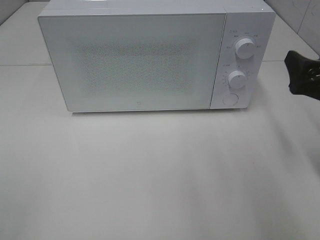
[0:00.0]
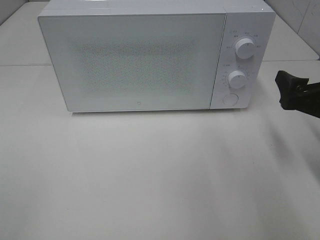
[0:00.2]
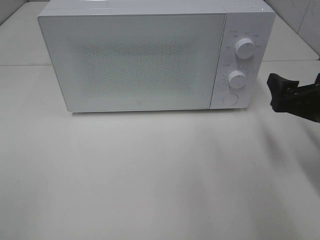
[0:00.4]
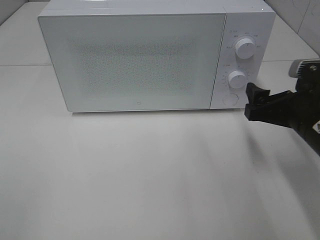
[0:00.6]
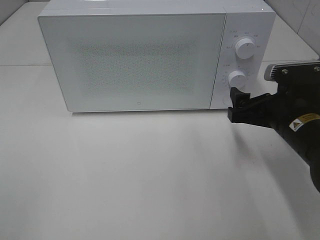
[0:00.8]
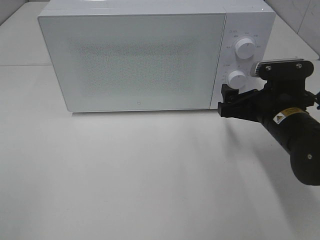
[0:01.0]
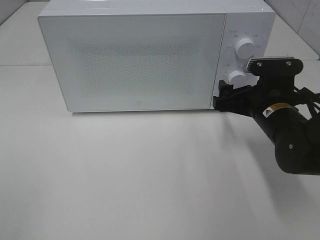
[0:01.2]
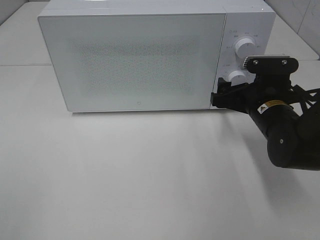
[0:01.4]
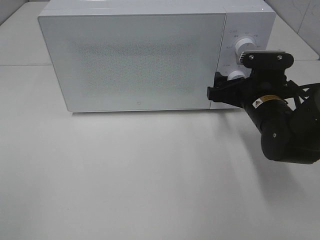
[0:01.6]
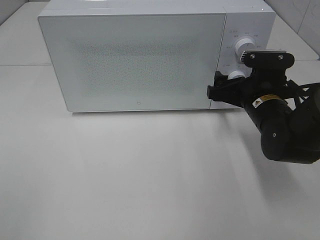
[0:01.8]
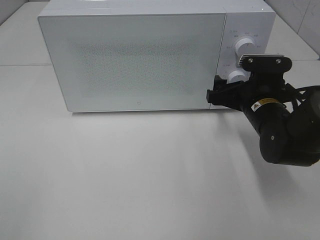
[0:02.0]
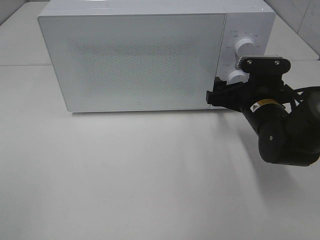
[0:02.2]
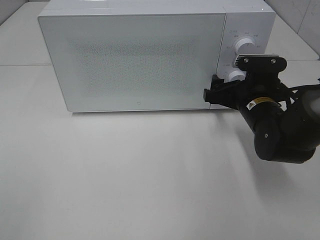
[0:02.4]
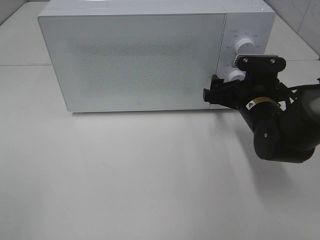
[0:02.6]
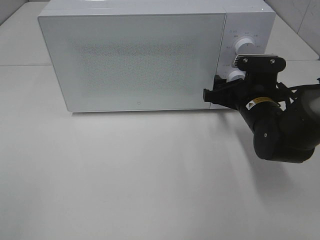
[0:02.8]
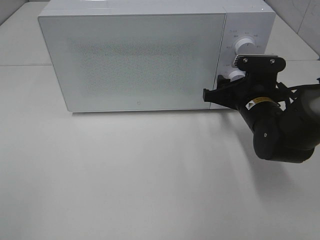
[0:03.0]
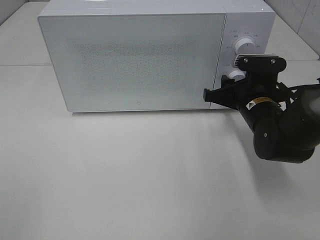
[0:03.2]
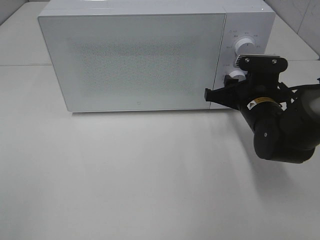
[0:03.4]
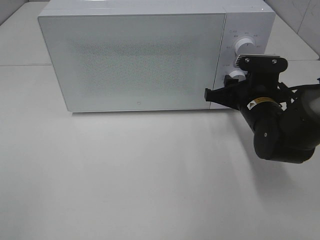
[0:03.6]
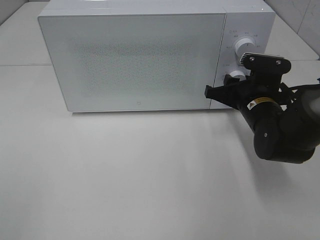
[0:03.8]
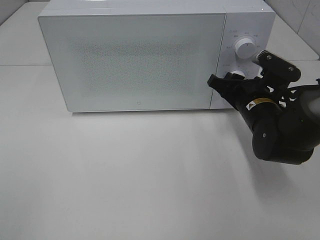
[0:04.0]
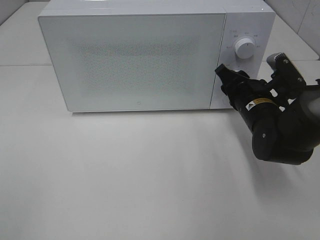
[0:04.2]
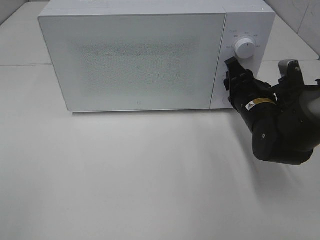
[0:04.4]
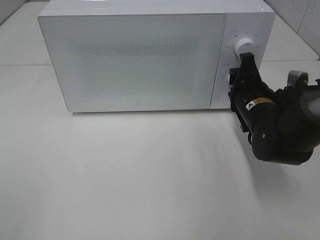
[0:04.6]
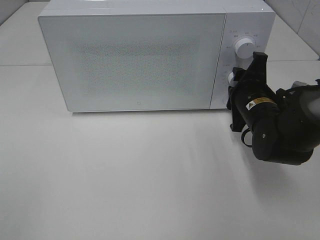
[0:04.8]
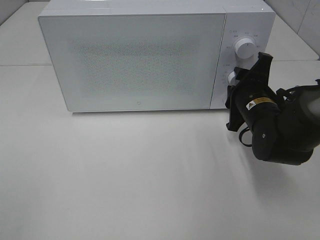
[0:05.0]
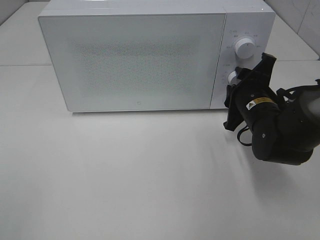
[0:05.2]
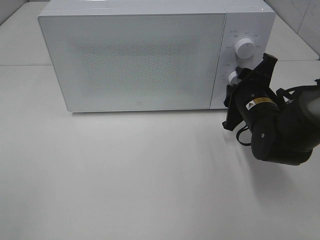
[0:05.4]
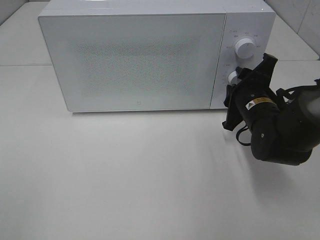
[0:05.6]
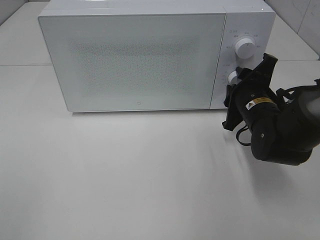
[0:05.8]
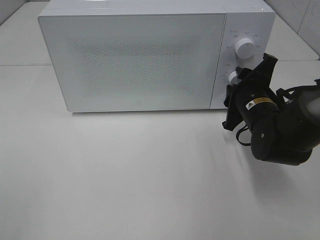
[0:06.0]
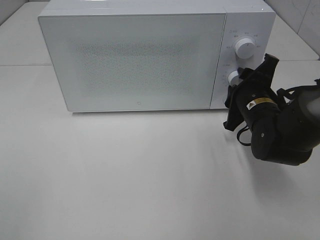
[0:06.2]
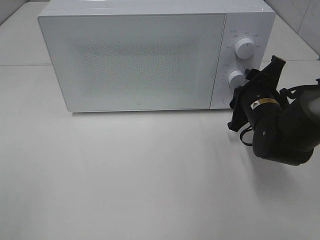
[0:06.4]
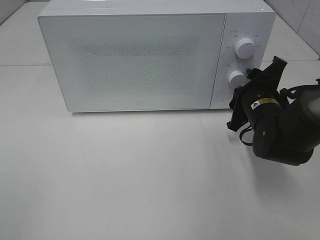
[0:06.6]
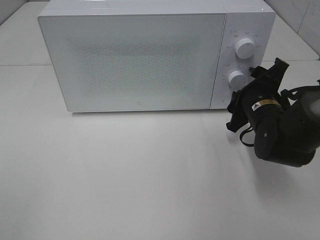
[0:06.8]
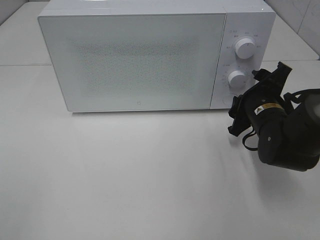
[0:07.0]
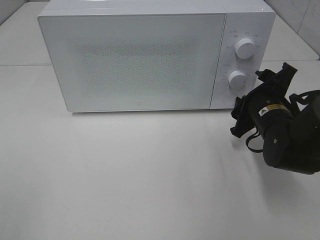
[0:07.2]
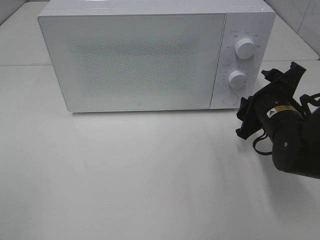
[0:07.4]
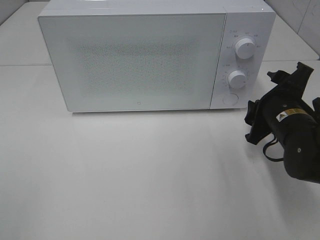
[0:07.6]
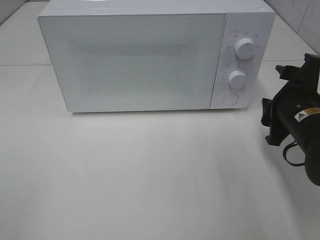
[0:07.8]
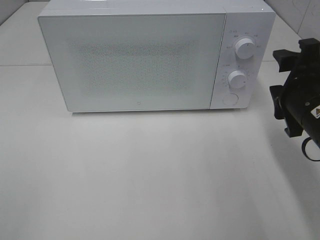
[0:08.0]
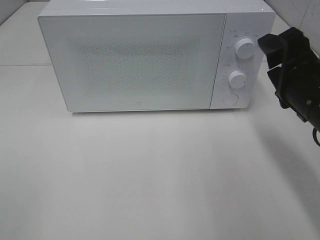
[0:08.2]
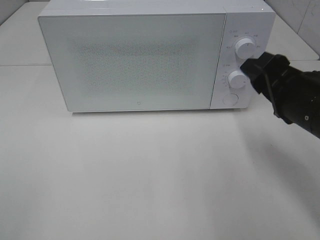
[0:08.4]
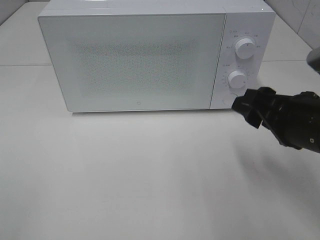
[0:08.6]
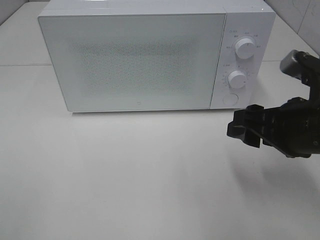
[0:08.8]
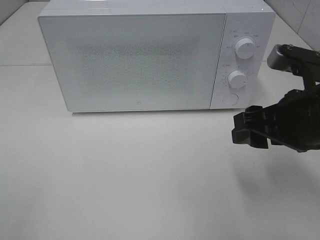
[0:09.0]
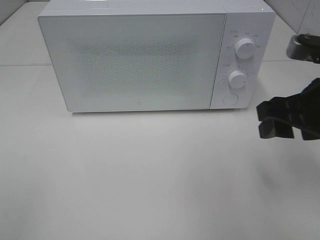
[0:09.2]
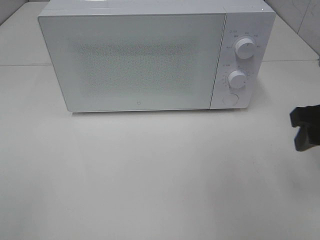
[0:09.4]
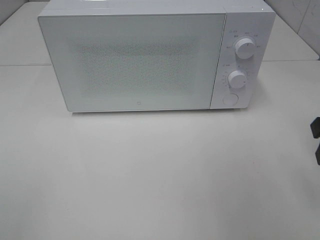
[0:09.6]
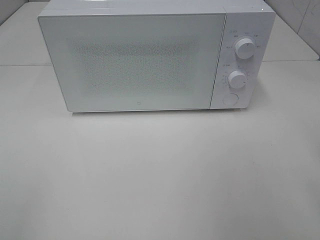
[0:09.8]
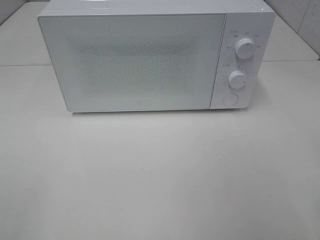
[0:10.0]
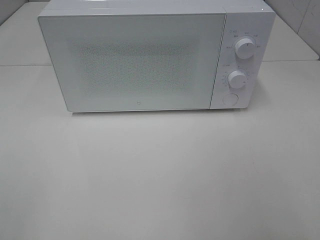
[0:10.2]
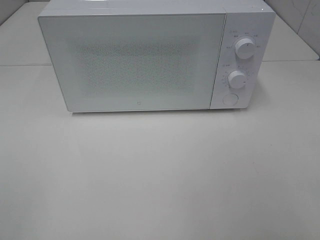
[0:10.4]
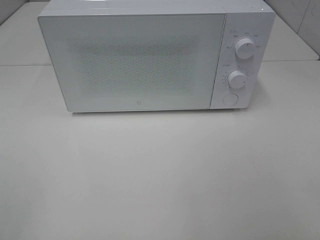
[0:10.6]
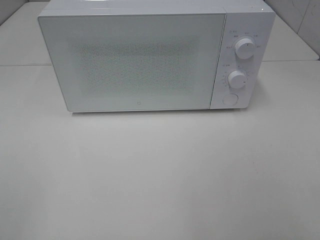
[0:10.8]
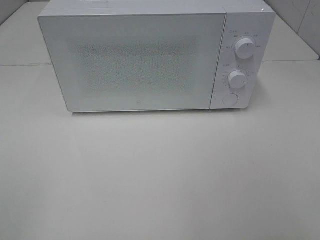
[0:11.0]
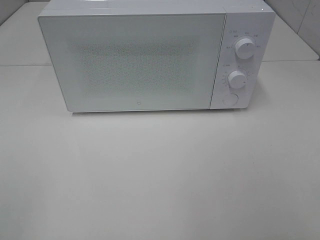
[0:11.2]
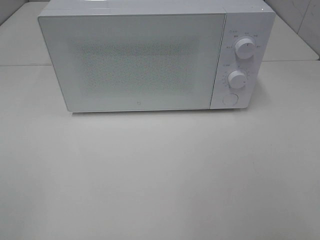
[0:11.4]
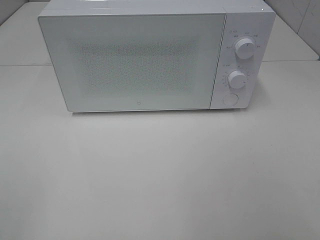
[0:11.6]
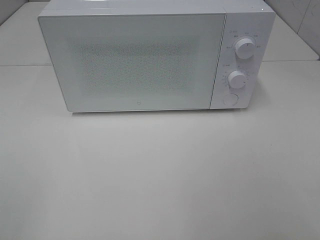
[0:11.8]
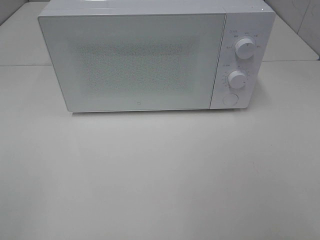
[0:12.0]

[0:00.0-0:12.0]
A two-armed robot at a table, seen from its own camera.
Task of the whole recording: Heat the burger.
Step, 0:00.0 to 0:06.6: Right hand: twist timer button.
0:00.0 to 0:01.6: The right gripper heads to the left, forward and downward, covering approximately 15 cm.
0:01.6 to 0:03.0: The grippers move only a little.
0:06.0 to 0:07.6: The right gripper ends up roughly 5 cm from where it was.
0:07.6 to 0:09.0: The right gripper moves upward and backward, roughly 10 cm.
0:09.0 to 0:10.4: The right gripper heads backward and to the right, covering some 20 cm.

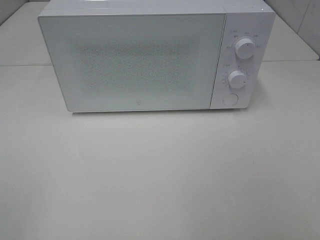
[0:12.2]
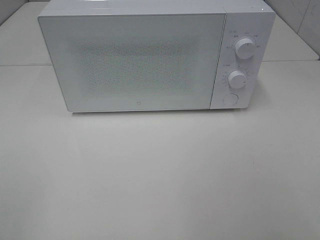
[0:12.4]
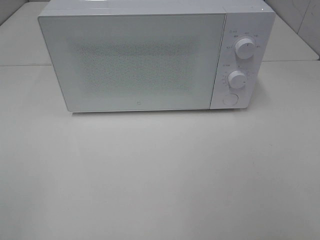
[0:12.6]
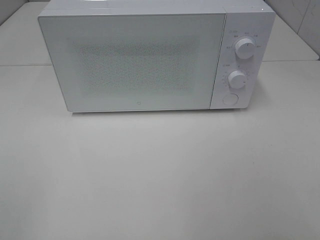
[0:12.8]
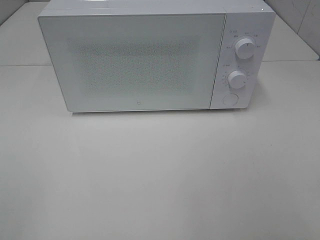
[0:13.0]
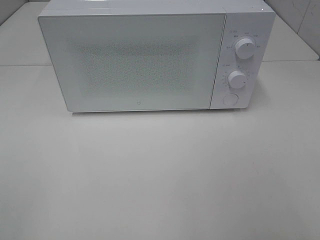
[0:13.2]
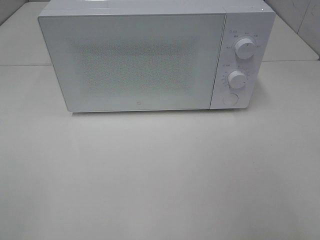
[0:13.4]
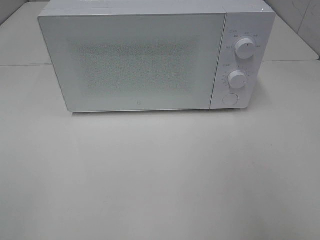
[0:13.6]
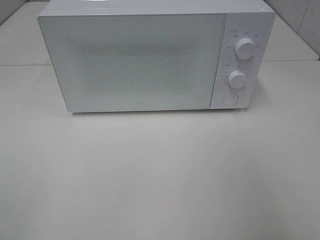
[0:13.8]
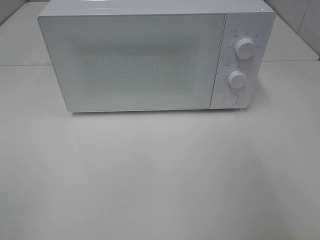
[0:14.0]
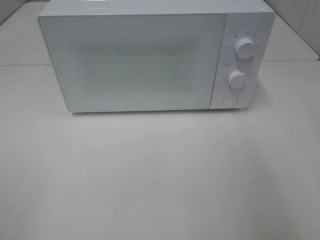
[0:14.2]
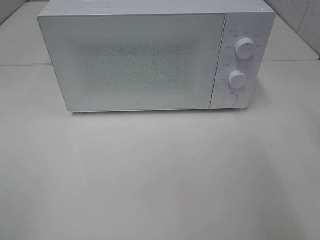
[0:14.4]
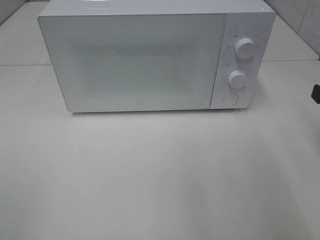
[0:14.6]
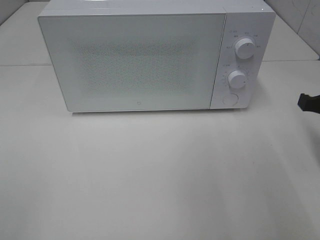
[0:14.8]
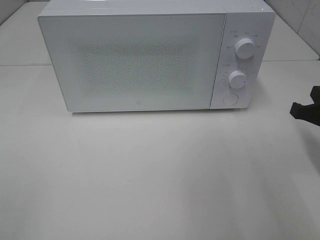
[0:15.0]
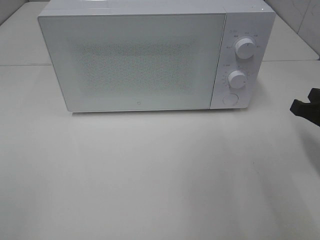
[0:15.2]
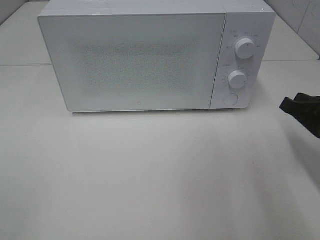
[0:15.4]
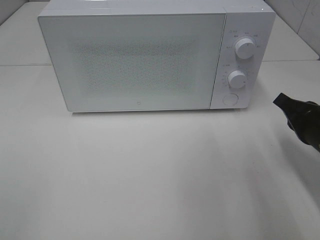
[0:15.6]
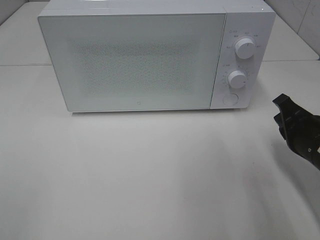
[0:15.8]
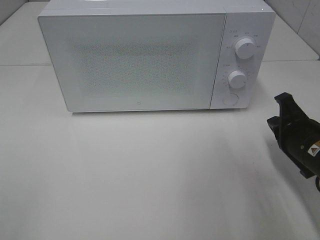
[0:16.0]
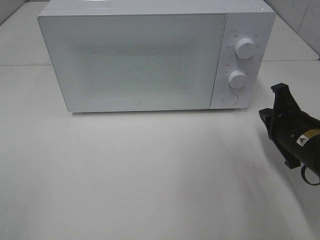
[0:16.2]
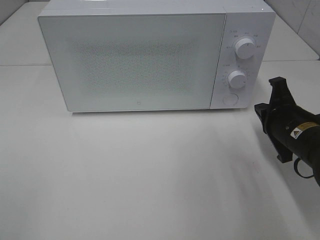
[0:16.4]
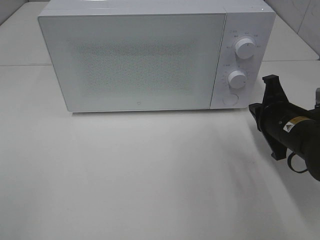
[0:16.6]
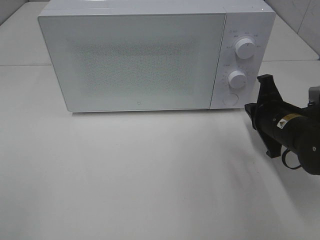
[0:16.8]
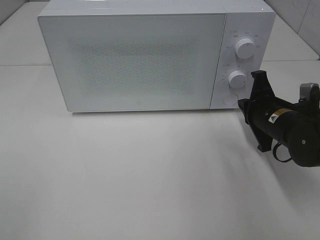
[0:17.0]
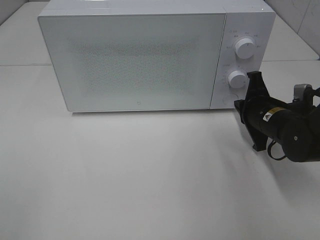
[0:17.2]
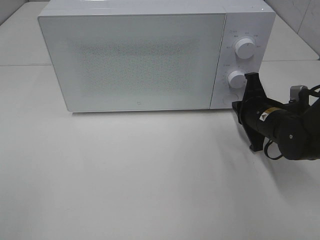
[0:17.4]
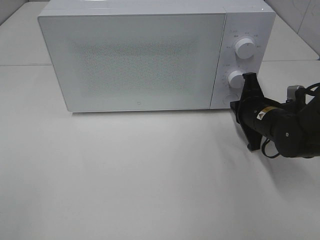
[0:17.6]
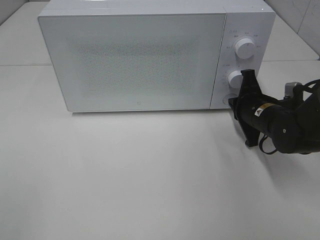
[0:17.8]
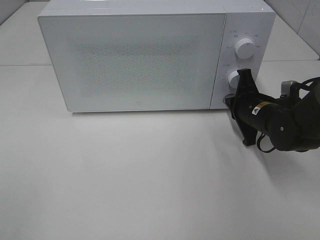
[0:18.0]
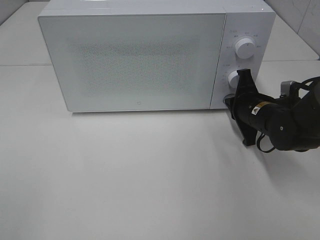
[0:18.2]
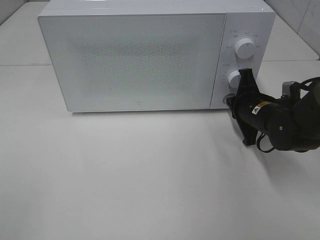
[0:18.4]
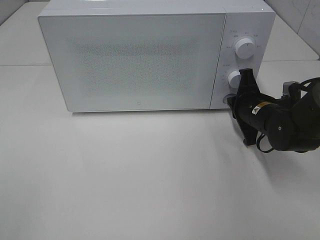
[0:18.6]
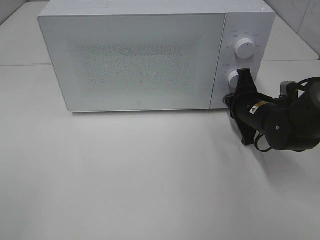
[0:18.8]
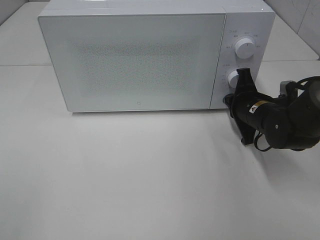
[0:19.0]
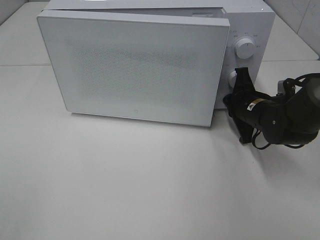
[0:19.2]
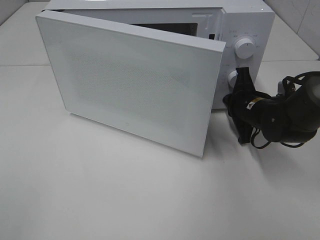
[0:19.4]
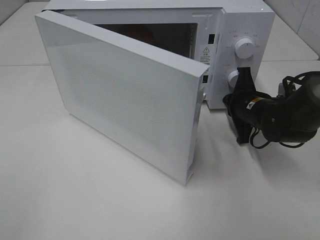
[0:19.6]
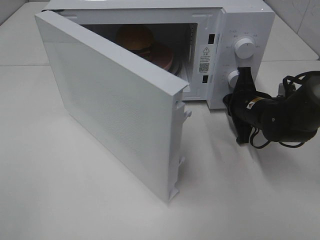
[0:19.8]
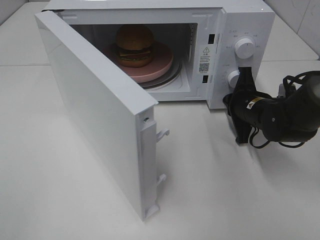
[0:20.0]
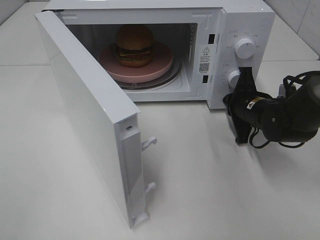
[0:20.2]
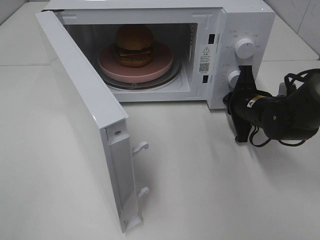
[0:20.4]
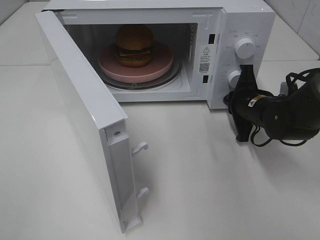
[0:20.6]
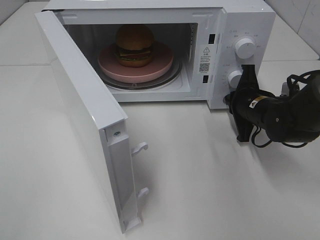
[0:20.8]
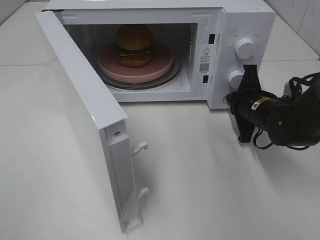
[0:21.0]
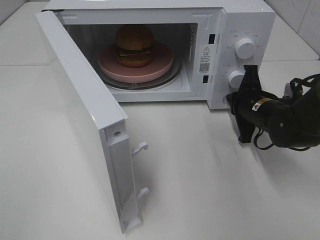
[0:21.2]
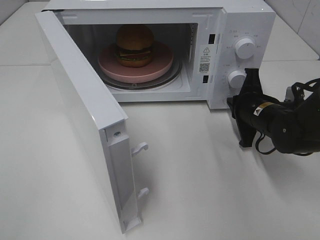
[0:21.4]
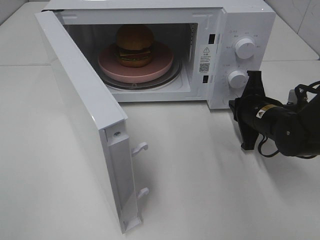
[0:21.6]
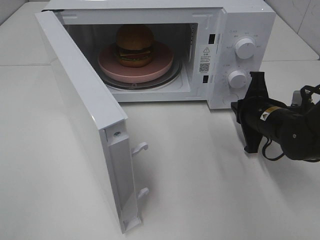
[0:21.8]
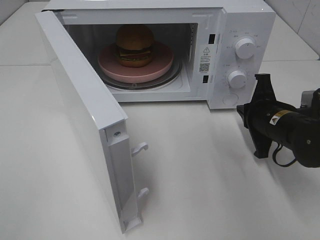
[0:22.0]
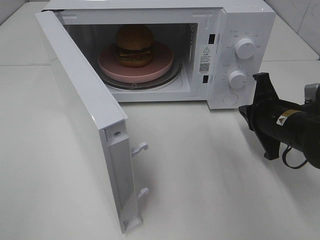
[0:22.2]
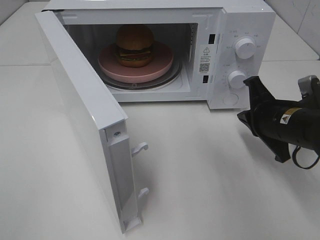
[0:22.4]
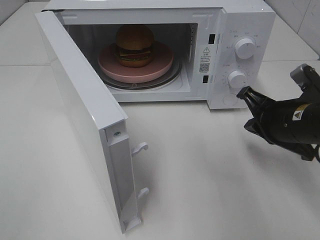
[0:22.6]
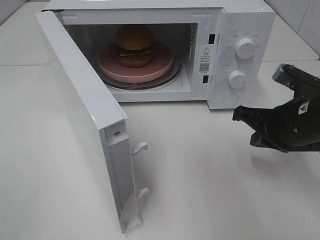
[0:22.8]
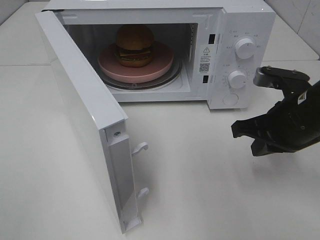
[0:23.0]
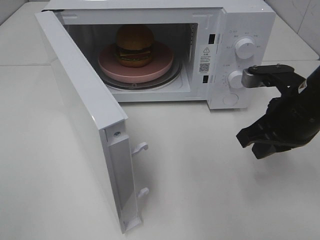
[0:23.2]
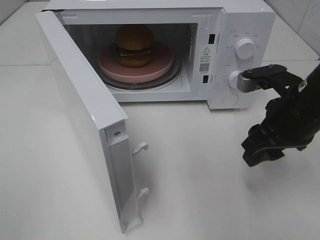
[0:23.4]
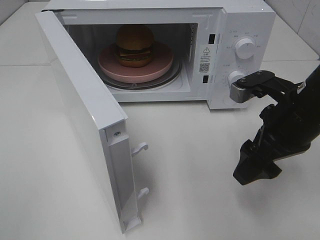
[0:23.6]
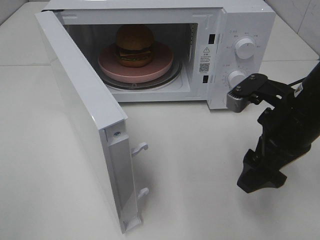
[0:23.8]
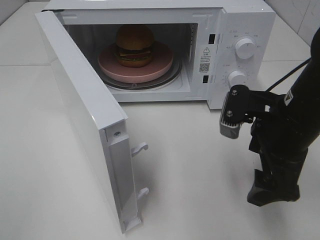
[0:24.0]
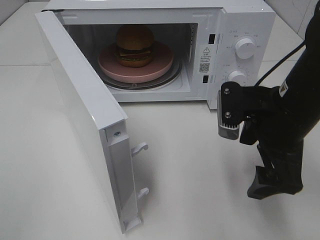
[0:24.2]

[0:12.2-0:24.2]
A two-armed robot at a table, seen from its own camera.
Task of the whole recording: Heat the burger.
Step, 0:12.2 to 0:20.6: Right hand: press the switch.
0:13.8 to 0:15.2: The right gripper moves downward and forward, roughly 20 cm.
0:15.2 to 0:16.6: The right gripper moves to the left and forward, approximately 10 cm.
0:16.6 to 0:18.2: The right gripper is displaced forward by approximately 5 cm.
0:21.2 to 0:22.6: The right gripper shifts some 10 cm backward and upward.
0:22.6 to 0:24.2: The right gripper travels upward by about 5 cm, and opens up.
